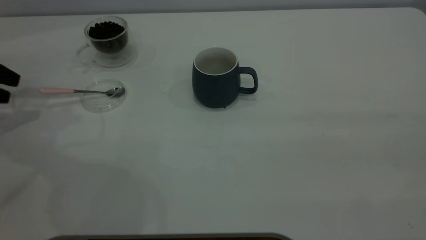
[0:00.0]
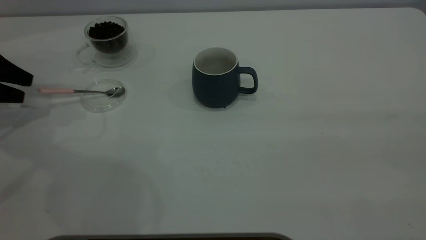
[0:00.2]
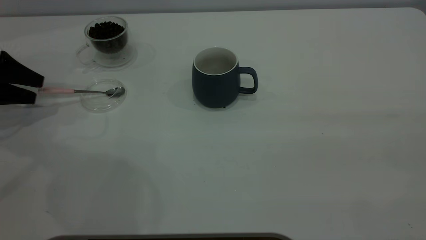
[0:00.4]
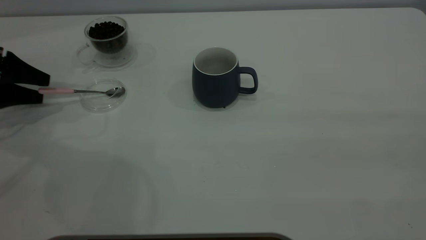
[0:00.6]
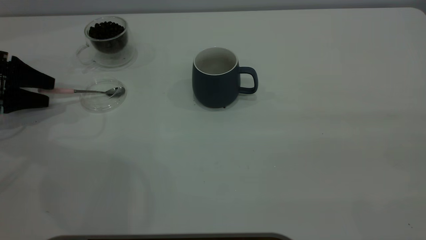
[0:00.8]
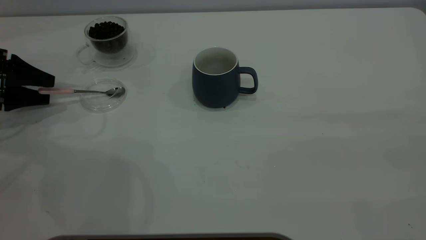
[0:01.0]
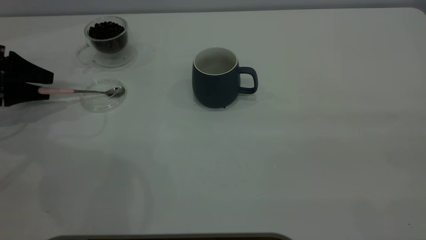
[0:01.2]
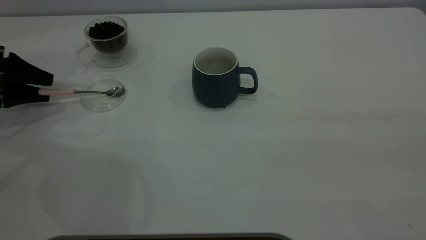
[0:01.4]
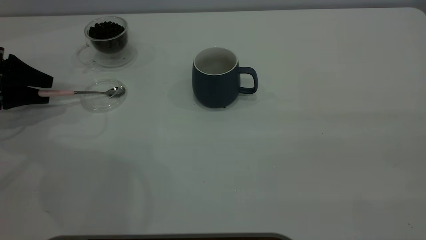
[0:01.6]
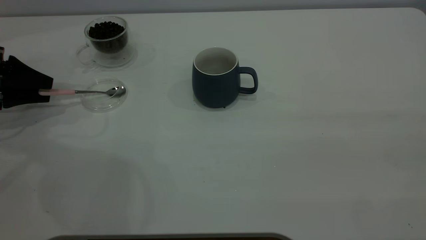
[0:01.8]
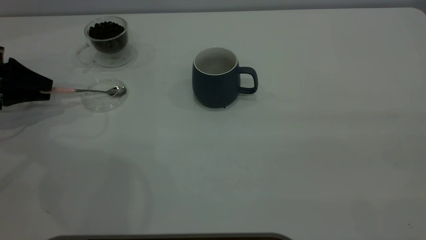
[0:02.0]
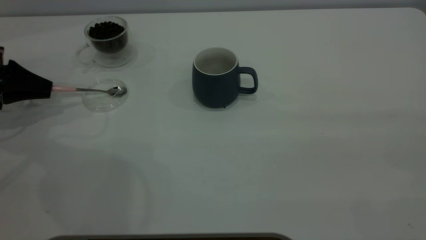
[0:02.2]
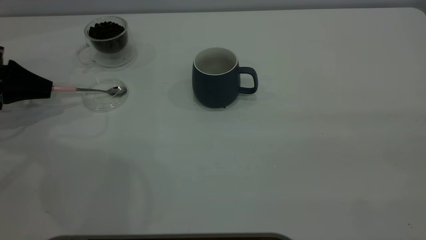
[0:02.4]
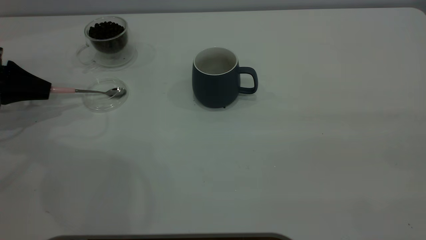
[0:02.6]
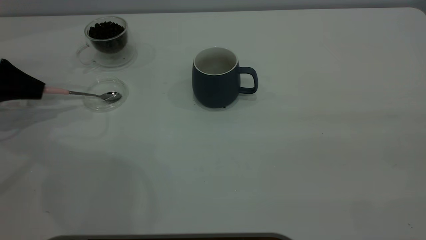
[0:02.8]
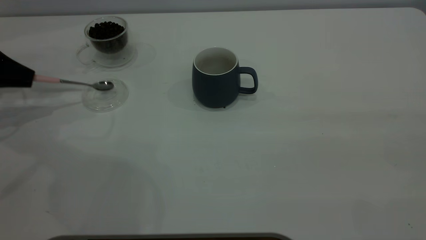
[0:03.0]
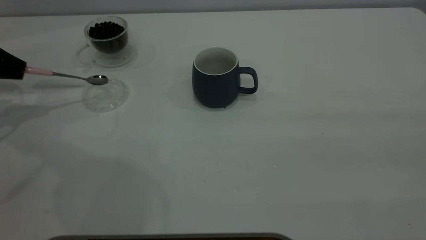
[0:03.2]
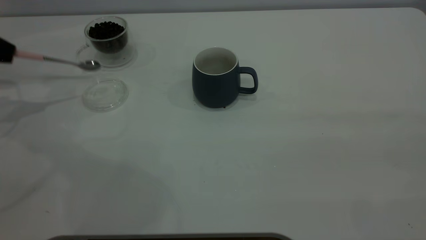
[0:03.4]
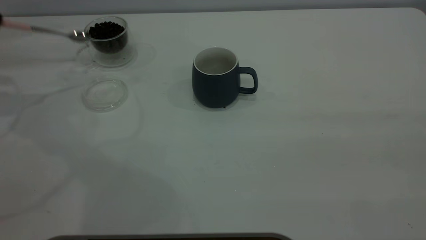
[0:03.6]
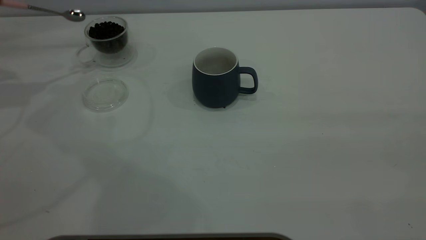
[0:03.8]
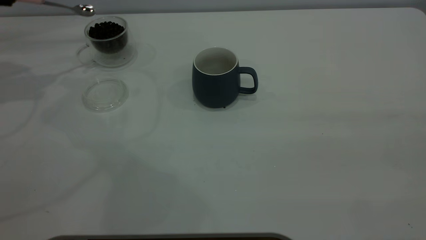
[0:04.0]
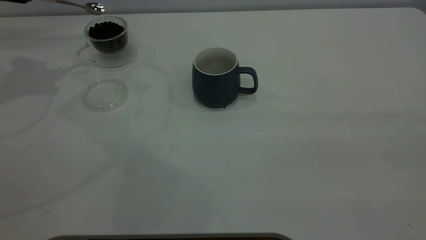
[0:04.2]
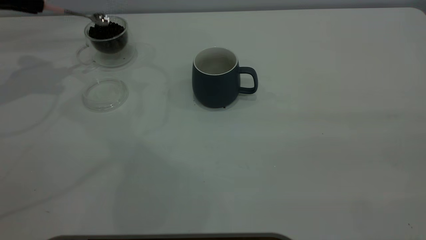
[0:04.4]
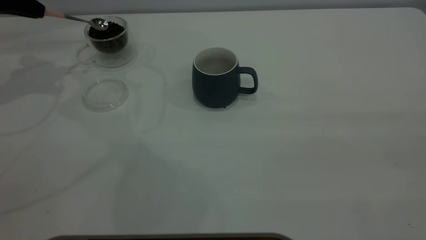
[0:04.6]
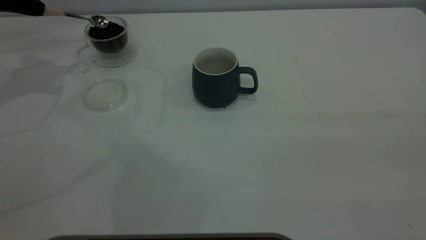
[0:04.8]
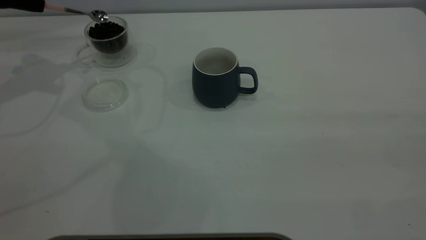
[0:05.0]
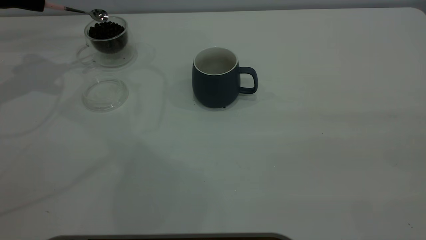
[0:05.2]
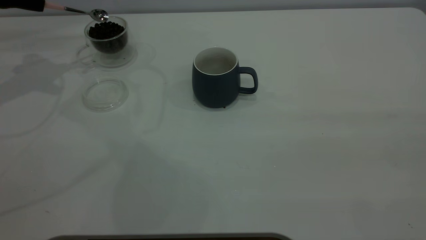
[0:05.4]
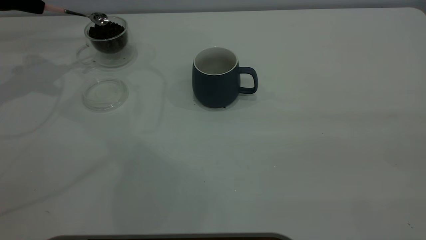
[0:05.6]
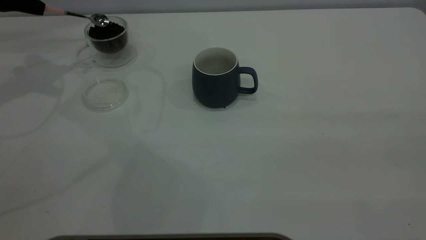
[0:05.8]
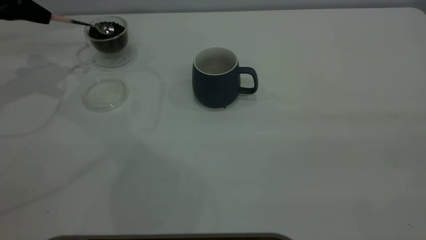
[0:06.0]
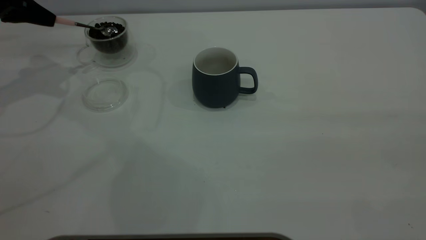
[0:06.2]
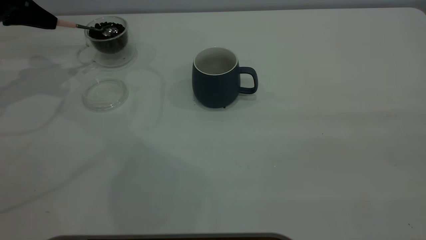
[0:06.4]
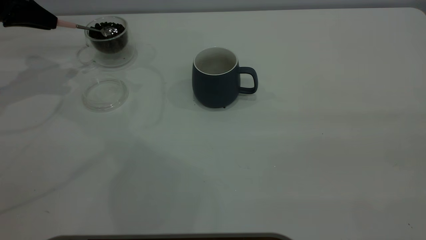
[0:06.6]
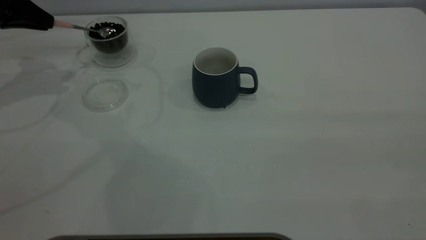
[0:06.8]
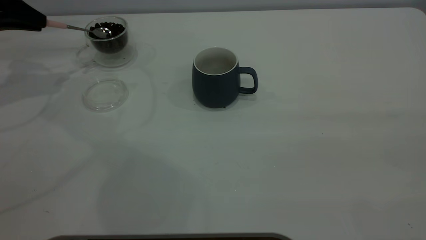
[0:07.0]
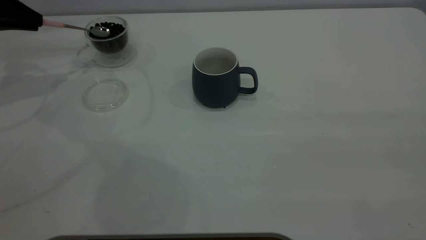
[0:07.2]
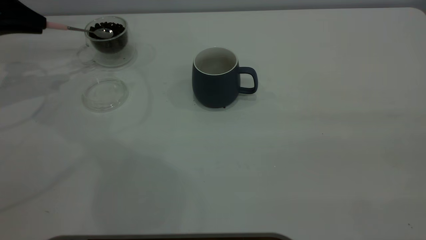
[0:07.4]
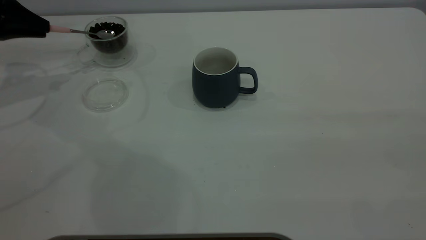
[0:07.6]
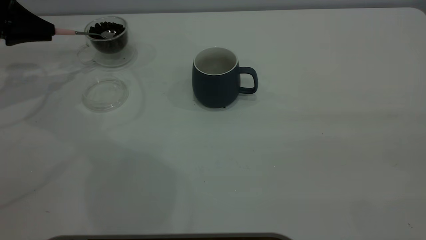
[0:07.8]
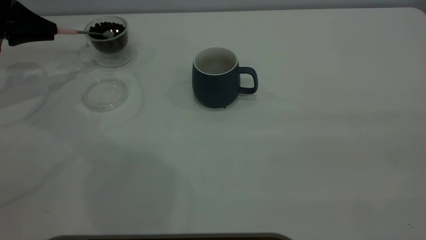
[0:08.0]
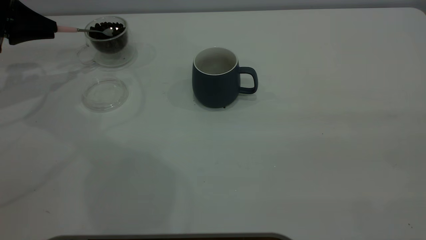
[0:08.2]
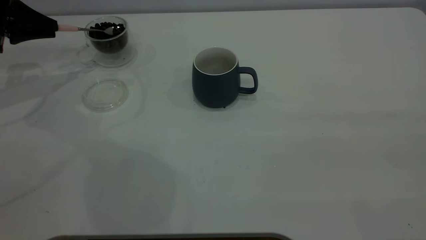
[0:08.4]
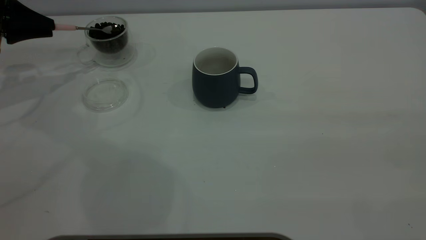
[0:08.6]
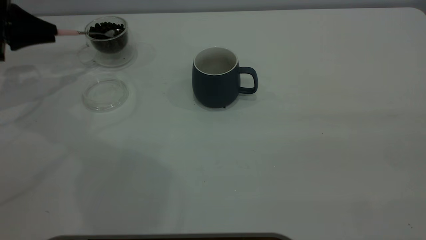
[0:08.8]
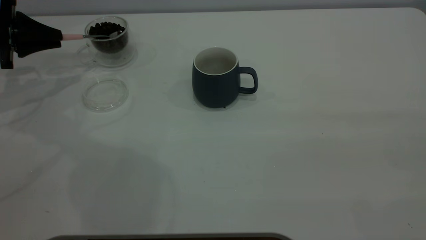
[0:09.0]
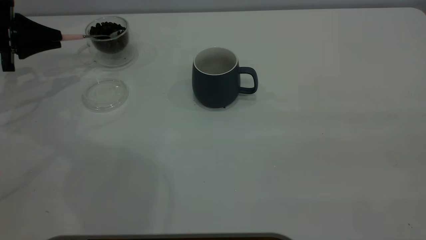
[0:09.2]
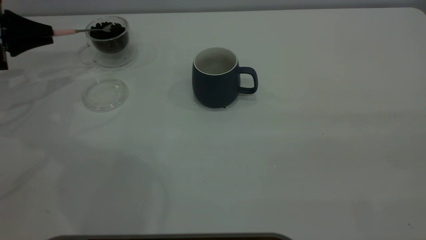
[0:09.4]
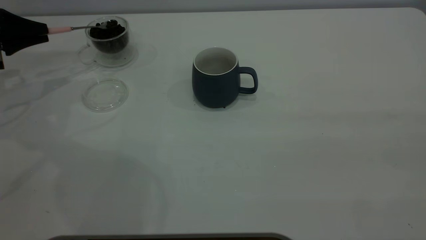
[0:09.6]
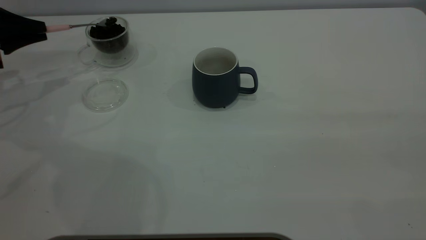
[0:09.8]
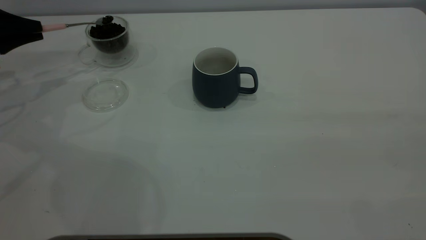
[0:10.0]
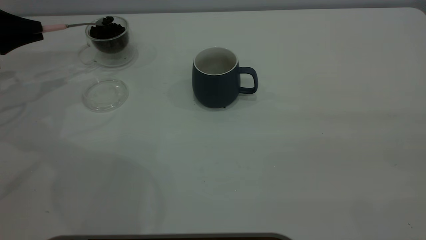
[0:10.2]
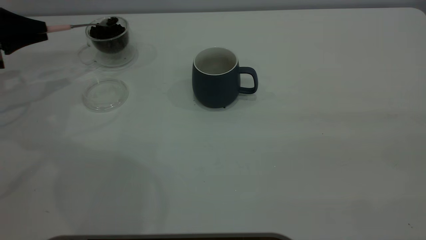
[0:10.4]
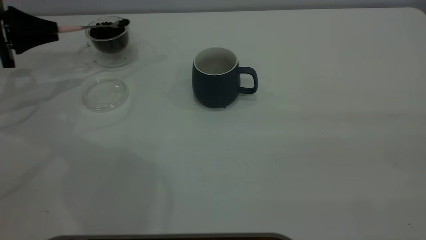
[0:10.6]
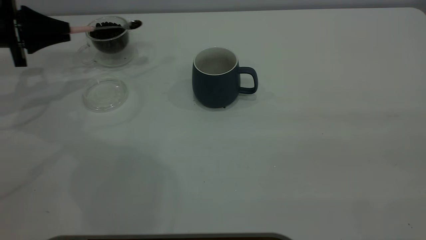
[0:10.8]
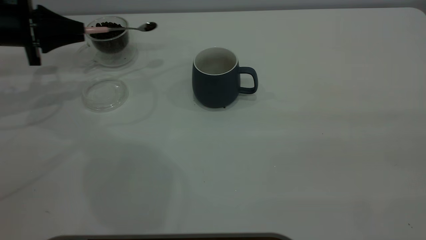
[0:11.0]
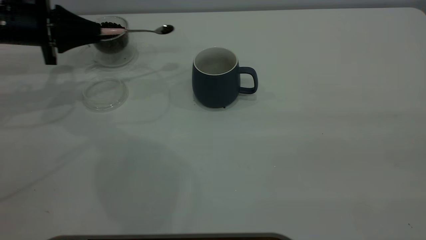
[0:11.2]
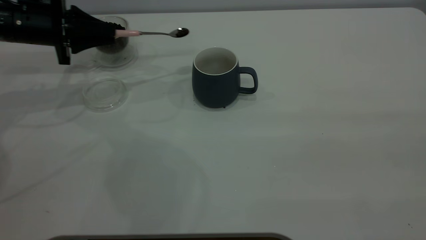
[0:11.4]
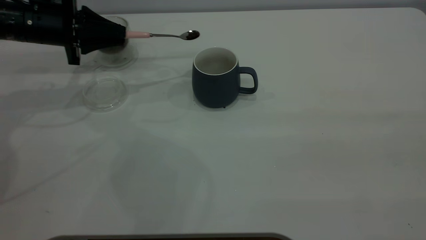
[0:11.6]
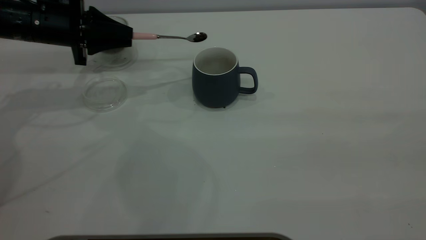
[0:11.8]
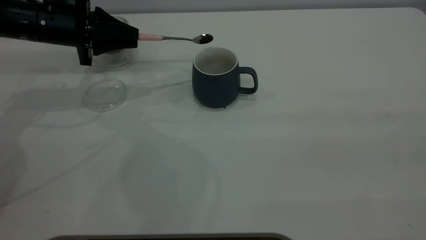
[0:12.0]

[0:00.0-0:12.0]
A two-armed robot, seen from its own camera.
Task of the whole recording: the right gripper place the grey cup in the center of the table, the left gripper take the pink spoon from the cup lid and scoop out the coffee beans from the coffee cup and put them into the grey cup, the left gripper put the spoon back into the cup lid.
Step, 0:00.0 to 0:03.2: Pick up the spoon.
0:00.0 to 0:01.6: The left gripper shifts by approximately 5 cm.
0:01.6 to 0:03.0: The left gripper closes its fingers.
0:03.0 to 0:04.4: The left gripper is displaced upward and forward by about 10 cm.
0:04.4 to 0:06.0: There are only small adjustments of the grippers.
0:07.6 to 0:09.0: The grippers make only small movements.
0:09.0 to 0:10.4: The grippers move only a little.
0:10.4 to 0:12.0: The left gripper moves to the right, some 15 cm.

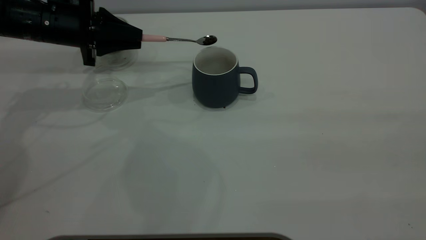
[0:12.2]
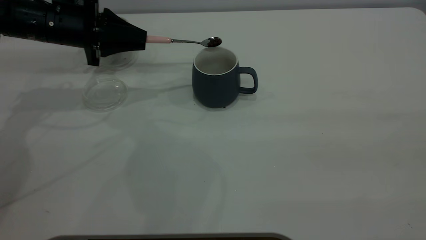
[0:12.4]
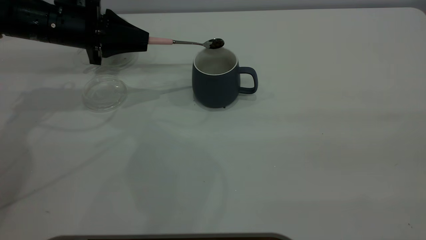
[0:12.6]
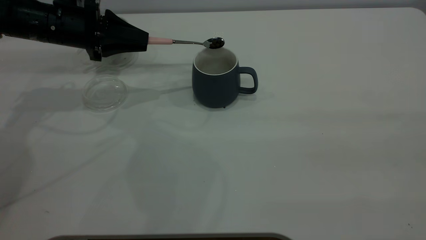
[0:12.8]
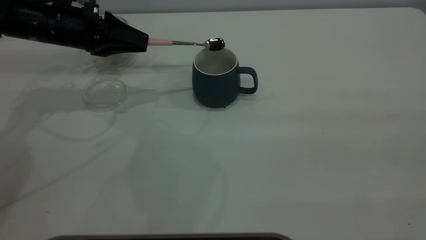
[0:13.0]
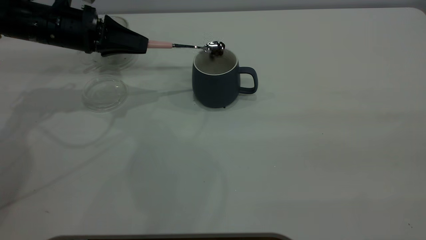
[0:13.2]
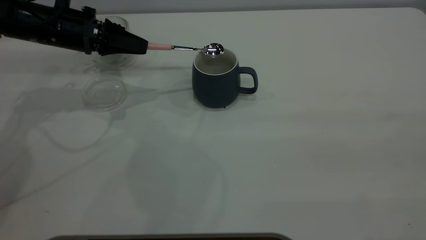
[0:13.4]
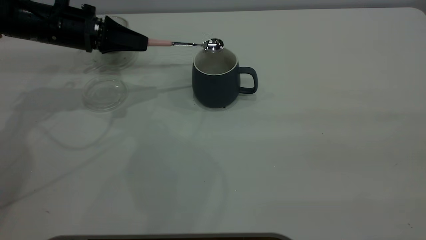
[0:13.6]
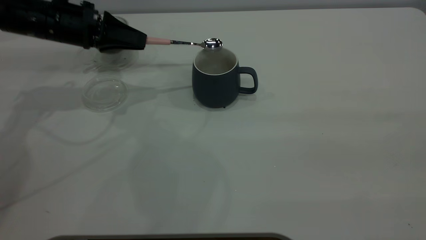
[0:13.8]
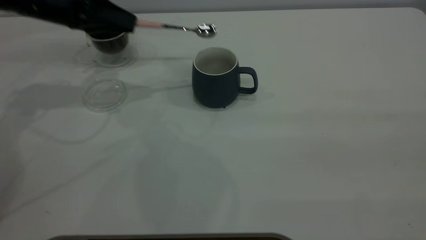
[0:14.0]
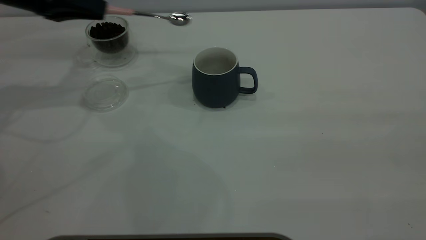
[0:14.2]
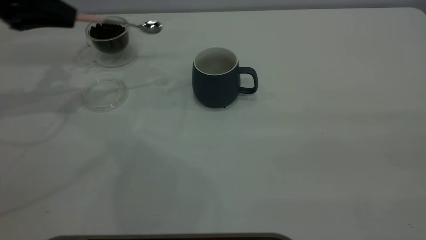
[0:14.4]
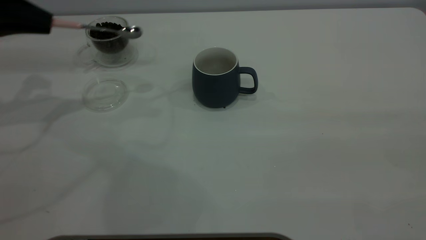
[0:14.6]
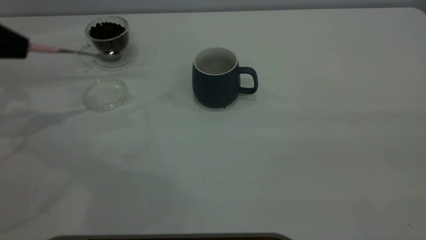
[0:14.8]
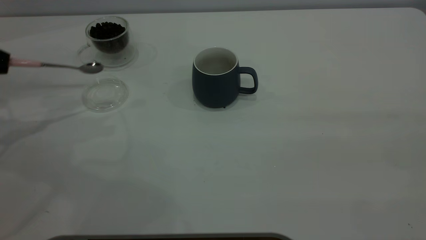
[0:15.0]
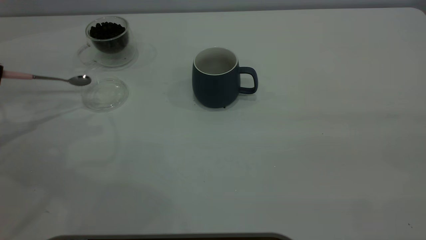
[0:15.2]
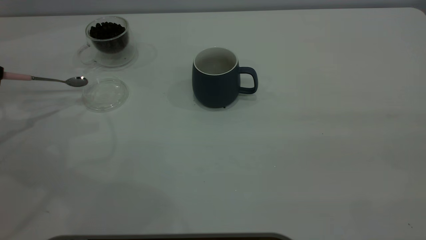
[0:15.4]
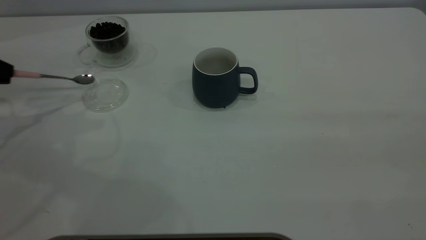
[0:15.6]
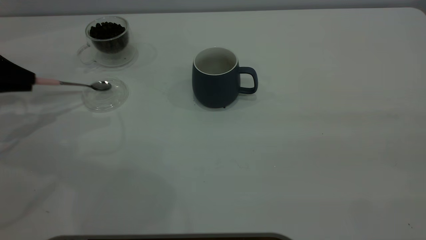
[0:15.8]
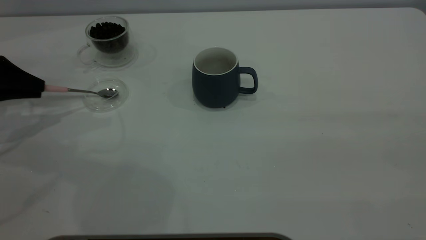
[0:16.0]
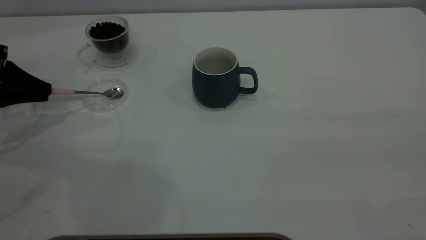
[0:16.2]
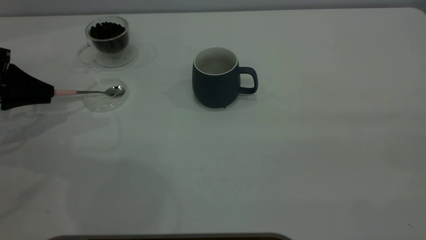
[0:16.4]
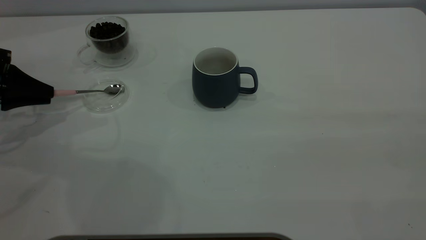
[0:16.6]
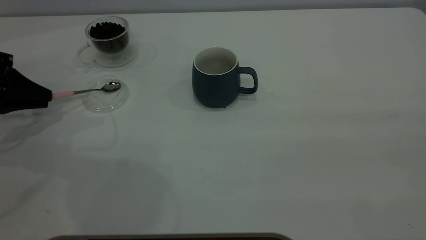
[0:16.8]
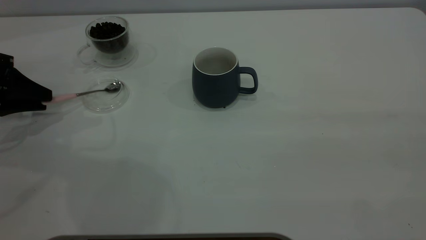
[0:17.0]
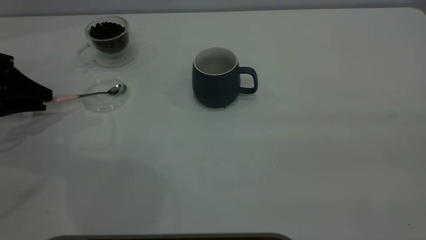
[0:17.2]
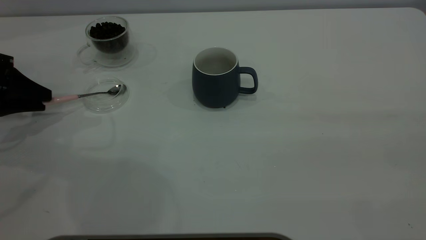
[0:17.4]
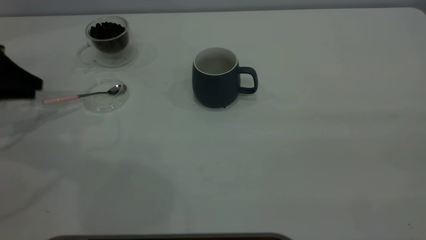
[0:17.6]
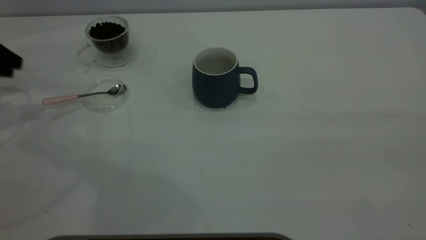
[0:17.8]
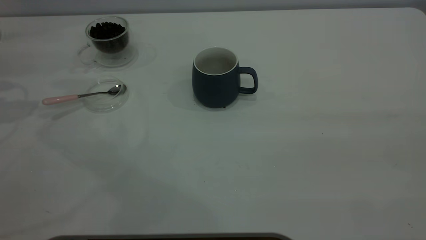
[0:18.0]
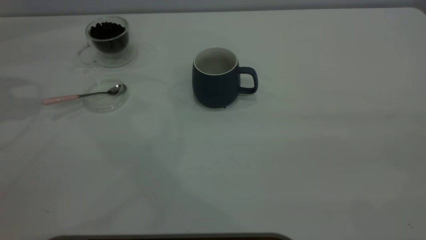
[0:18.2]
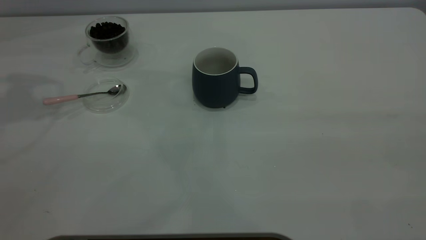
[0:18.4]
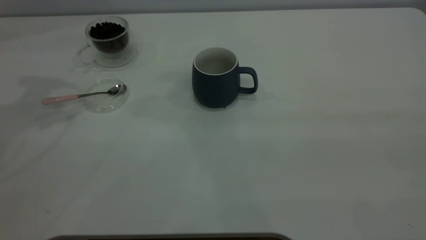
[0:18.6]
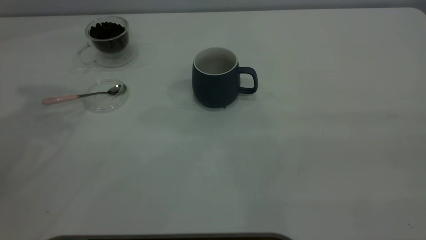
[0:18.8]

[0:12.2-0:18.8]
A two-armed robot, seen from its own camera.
Task of the whole recording: the right gripper place the grey cup in the center of the table, the left gripper take the pink spoon from the cup lid and scoop out the coffee beans from the coffee cup and put them into the grey cup, the left gripper put the spoon back into the cup lid.
Step, 0:14.0 to 0:17.6: Place the spoon back in its original place.
0:13.8 to 0:15.4: The left gripper shifts approximately 20 cm to the left and backward.
0:15.4 to 0:17.2: The left gripper heads downward, covering approximately 5 cm, and opens up.
0:17.2 to 0:18.8: The left gripper shifts approximately 30 cm upward, and opens.
